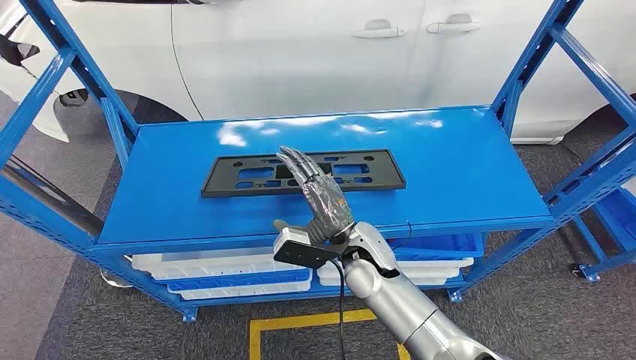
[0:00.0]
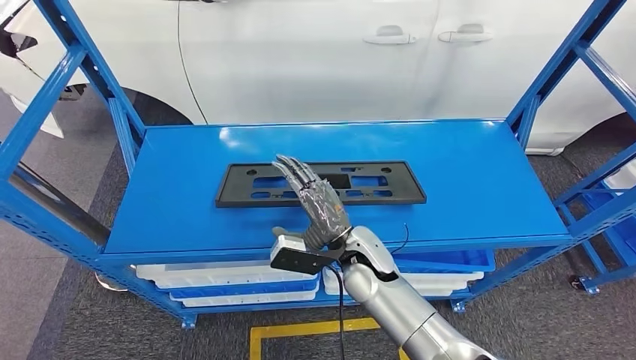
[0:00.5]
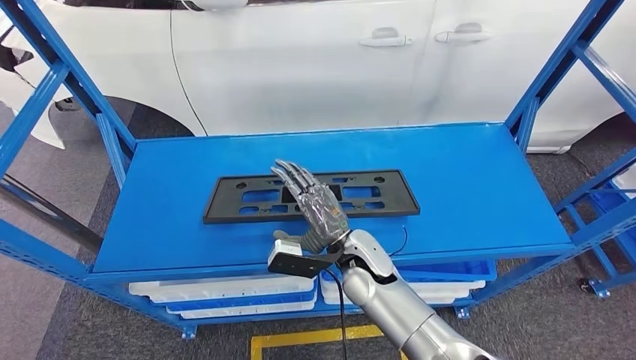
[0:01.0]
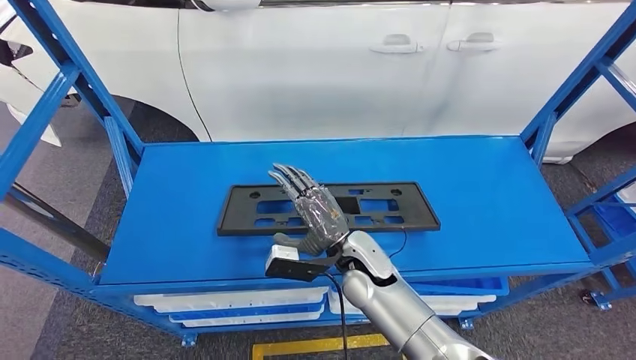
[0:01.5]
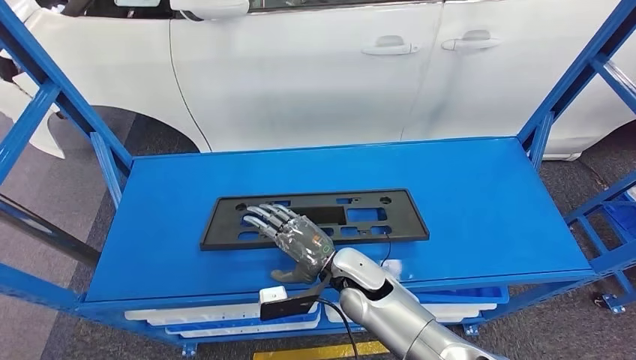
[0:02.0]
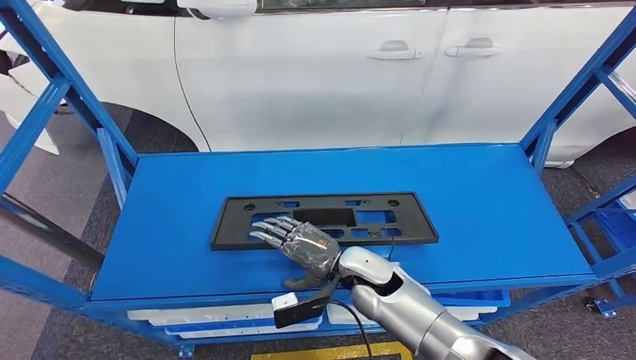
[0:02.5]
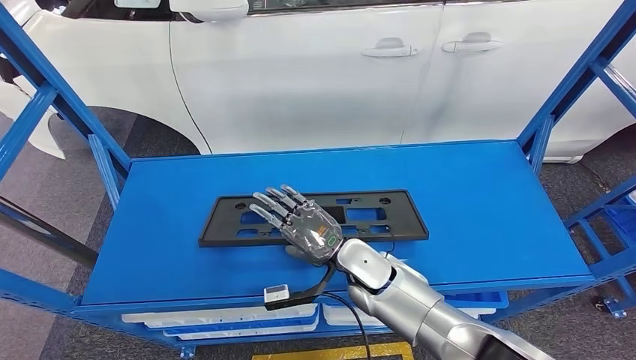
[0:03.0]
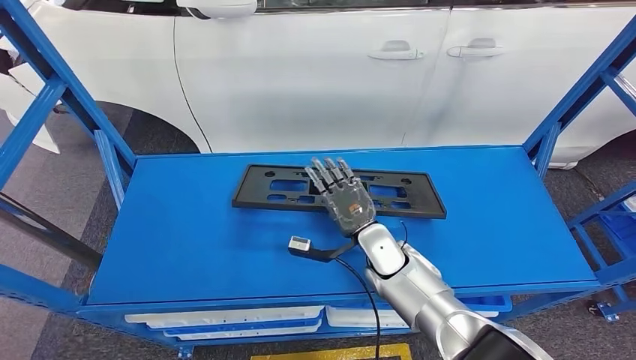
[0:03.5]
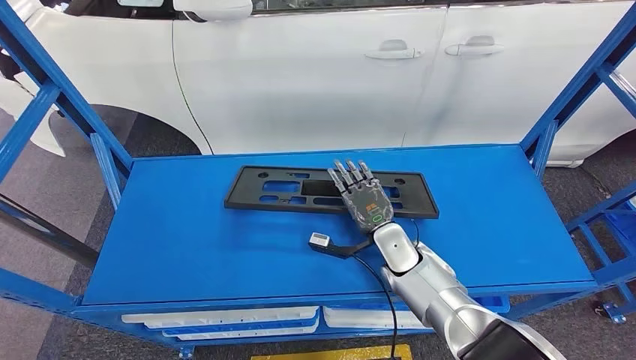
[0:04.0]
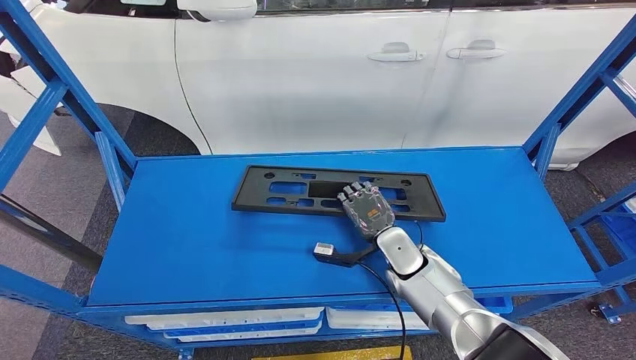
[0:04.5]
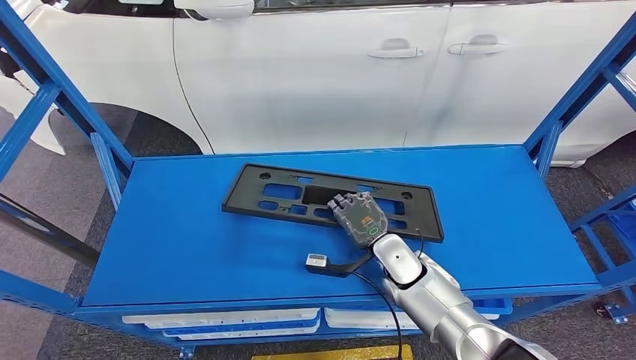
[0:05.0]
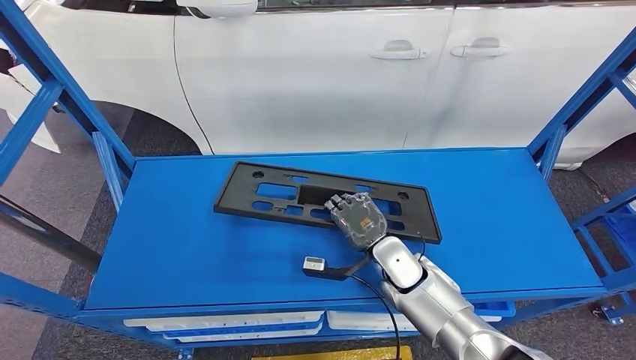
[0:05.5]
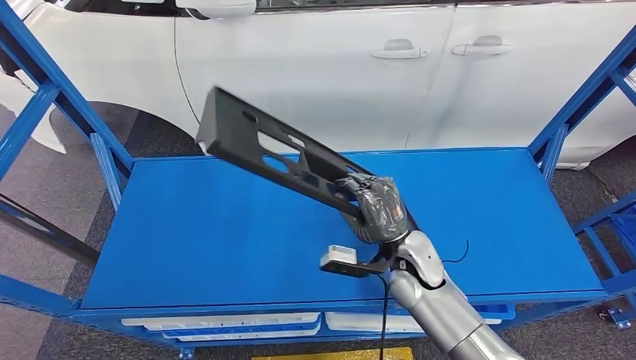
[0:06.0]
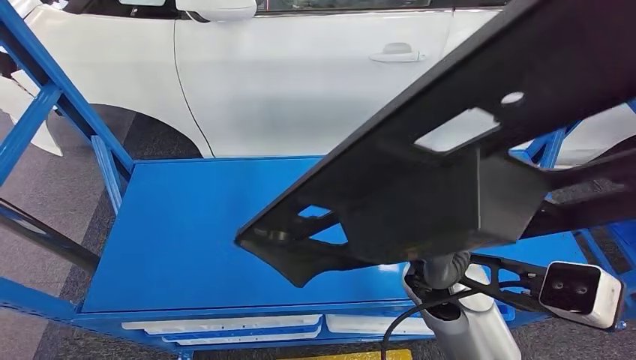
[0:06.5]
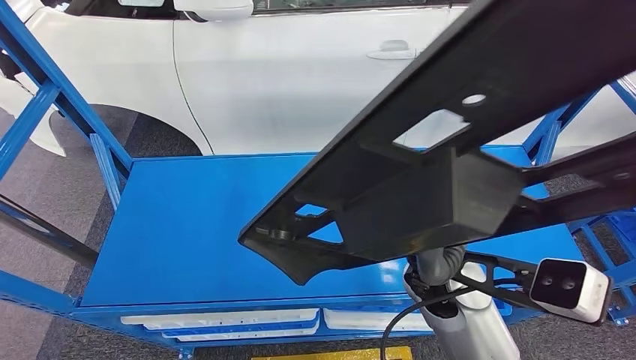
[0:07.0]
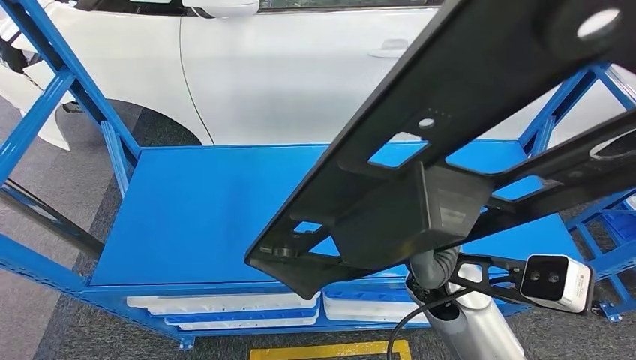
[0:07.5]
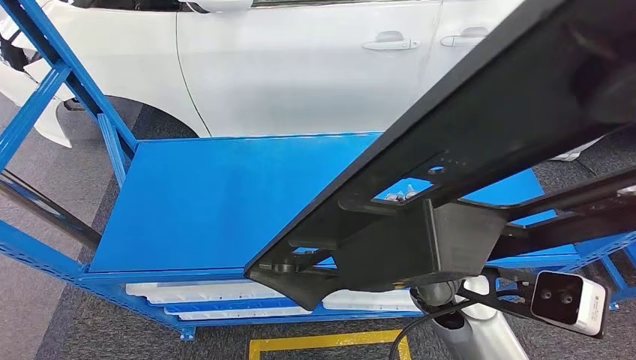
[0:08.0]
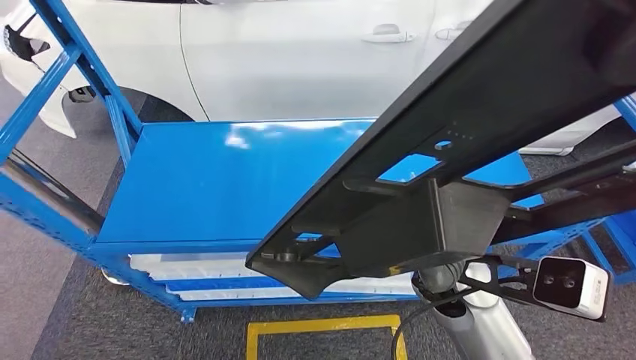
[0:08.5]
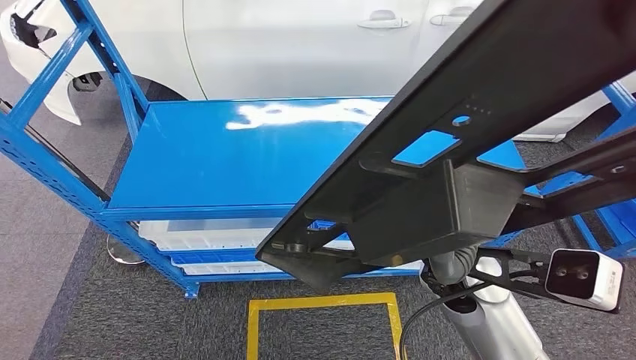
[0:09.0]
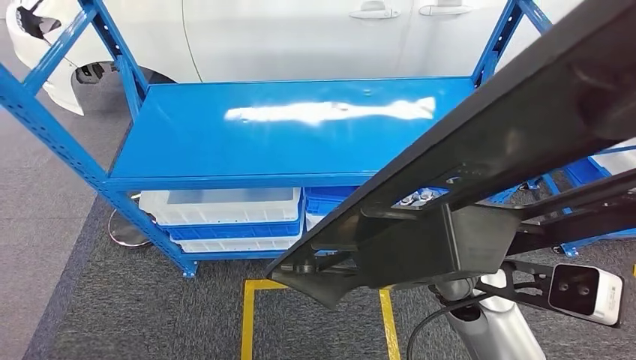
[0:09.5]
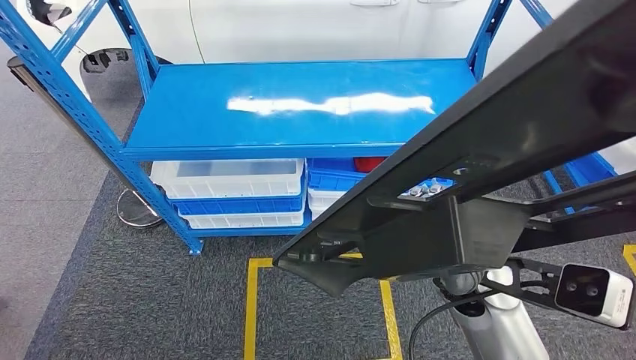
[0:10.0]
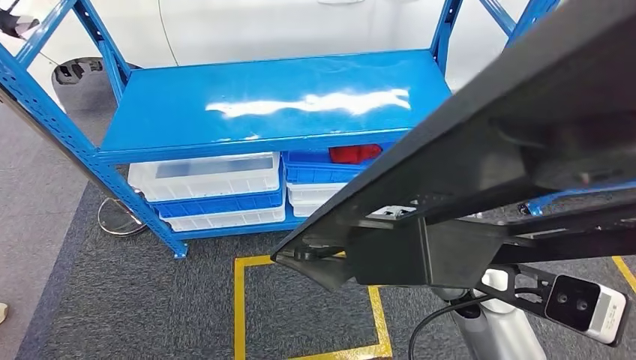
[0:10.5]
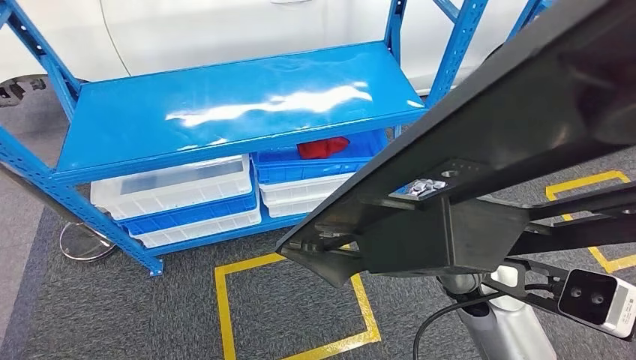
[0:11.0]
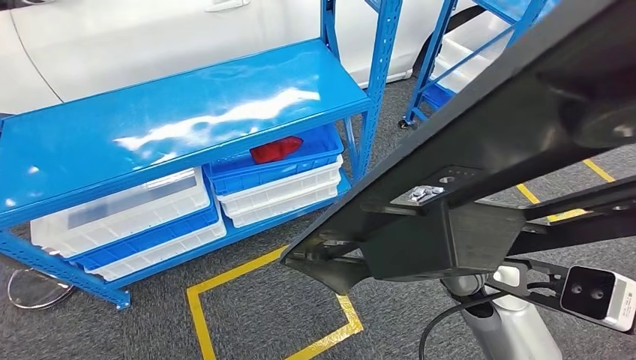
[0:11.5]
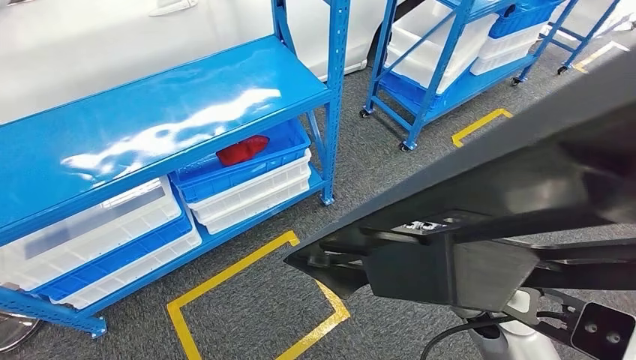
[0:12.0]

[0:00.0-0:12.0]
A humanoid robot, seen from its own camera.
Step, 0:00.0 to 0:07.5: Pick up the small component from the shelf.

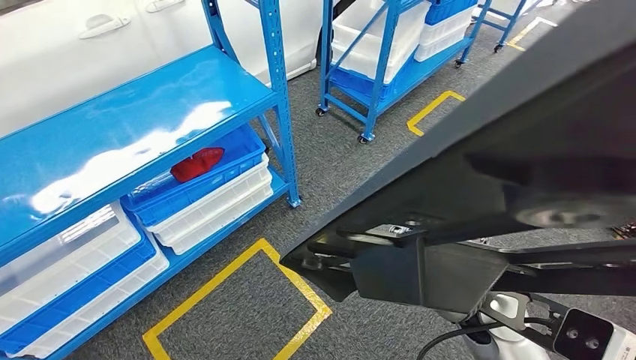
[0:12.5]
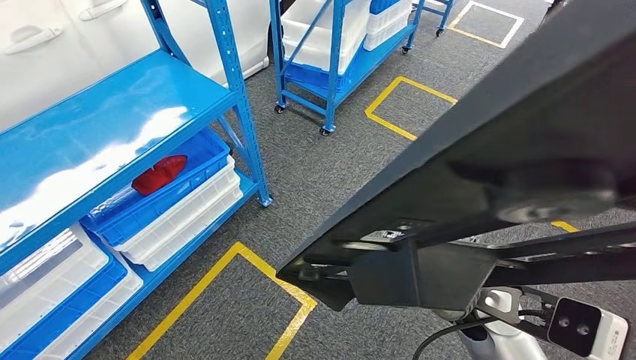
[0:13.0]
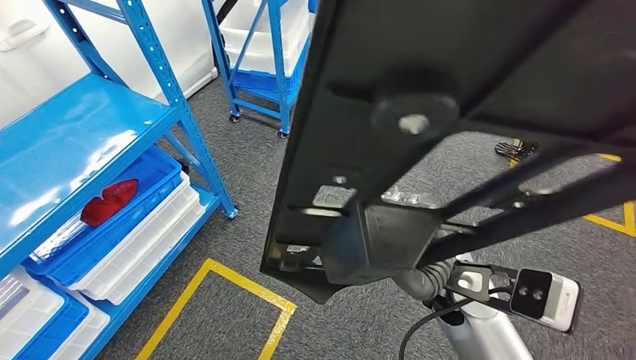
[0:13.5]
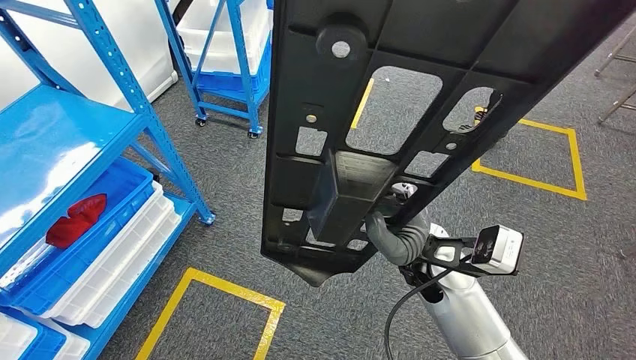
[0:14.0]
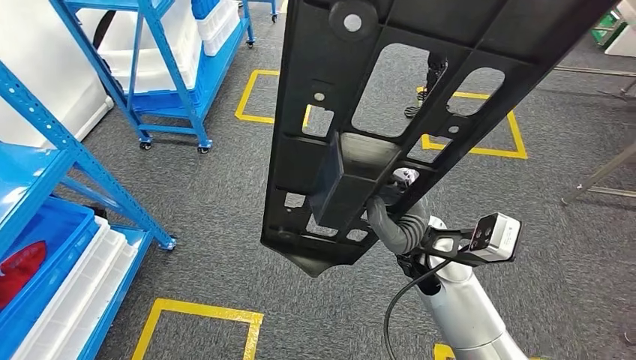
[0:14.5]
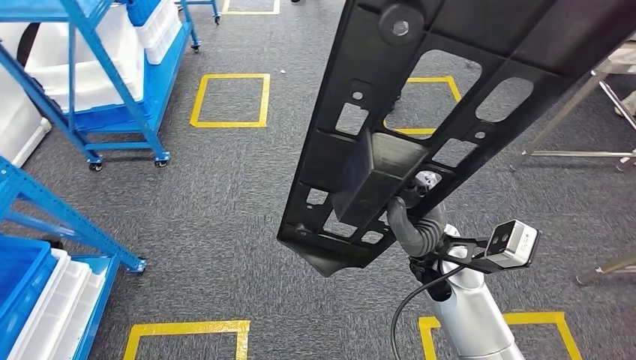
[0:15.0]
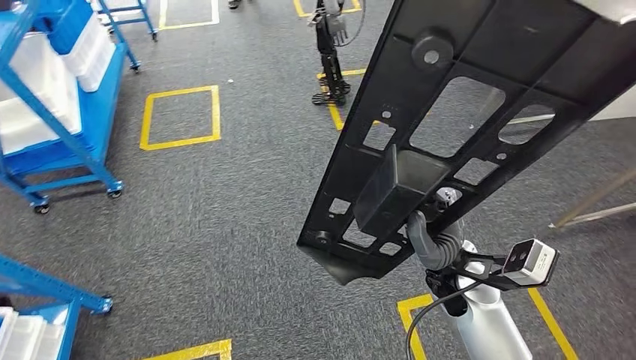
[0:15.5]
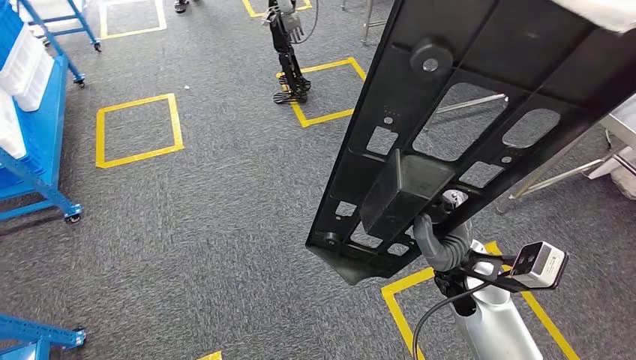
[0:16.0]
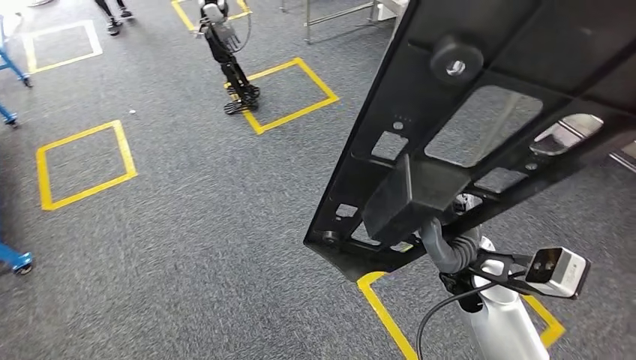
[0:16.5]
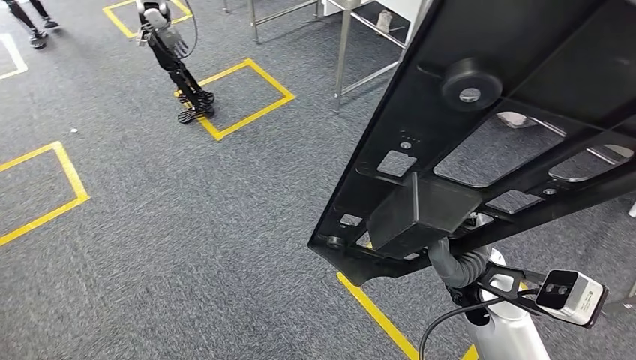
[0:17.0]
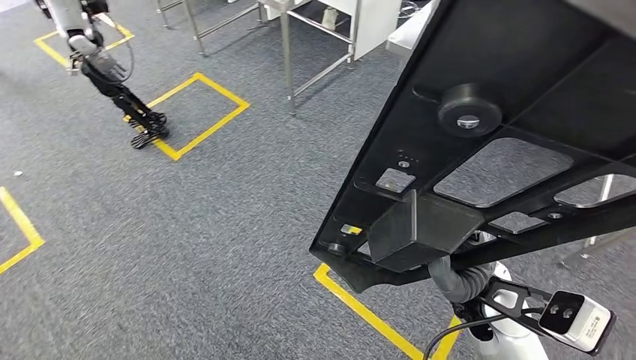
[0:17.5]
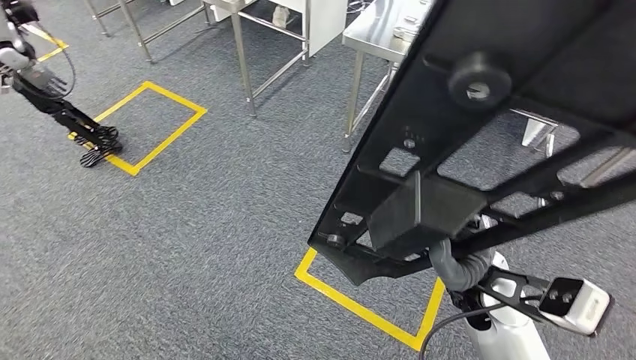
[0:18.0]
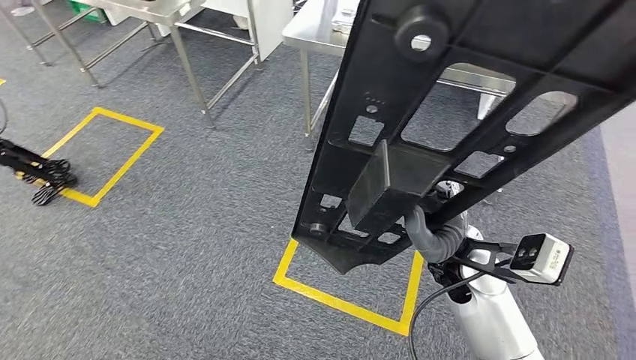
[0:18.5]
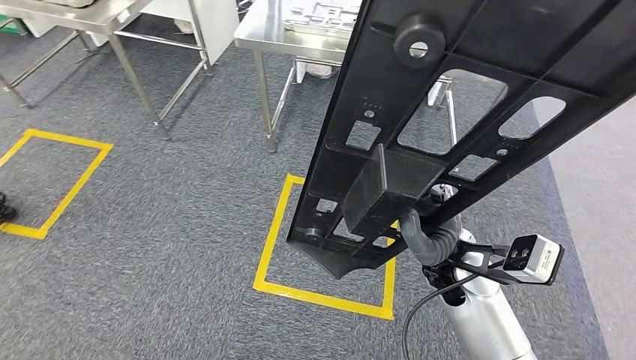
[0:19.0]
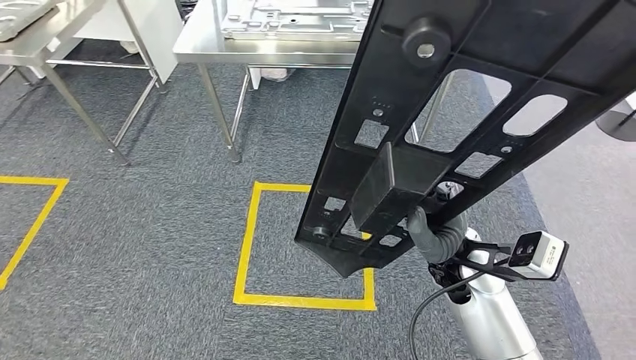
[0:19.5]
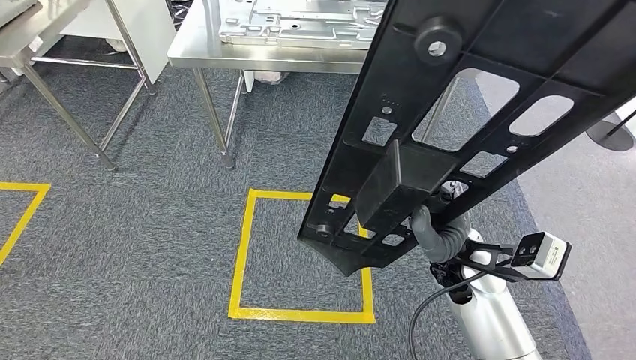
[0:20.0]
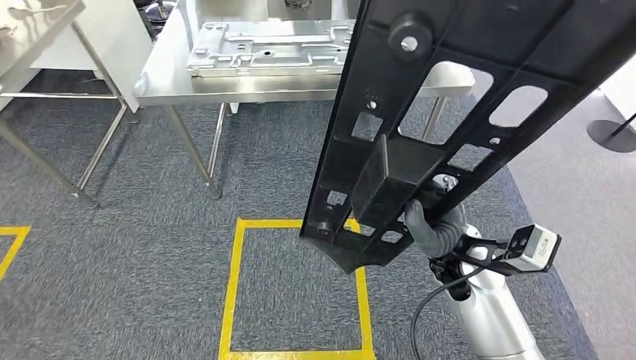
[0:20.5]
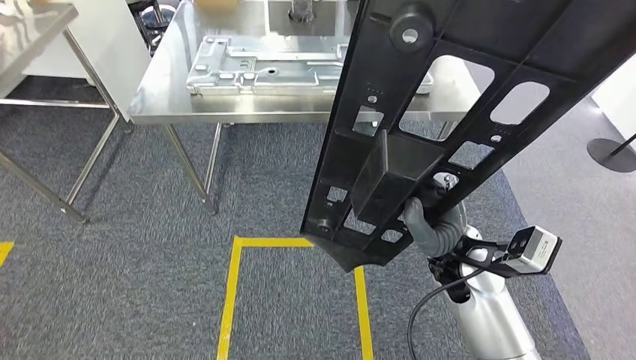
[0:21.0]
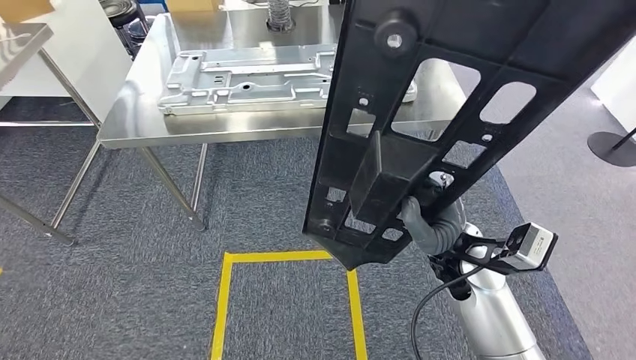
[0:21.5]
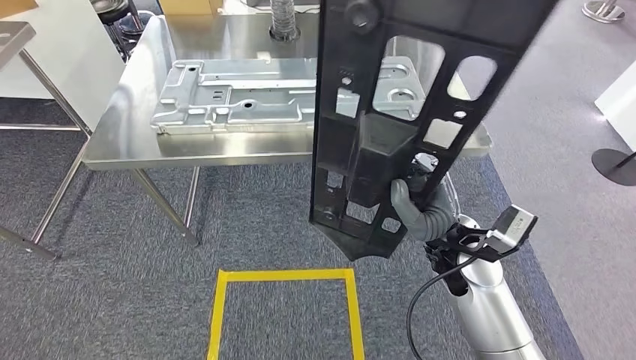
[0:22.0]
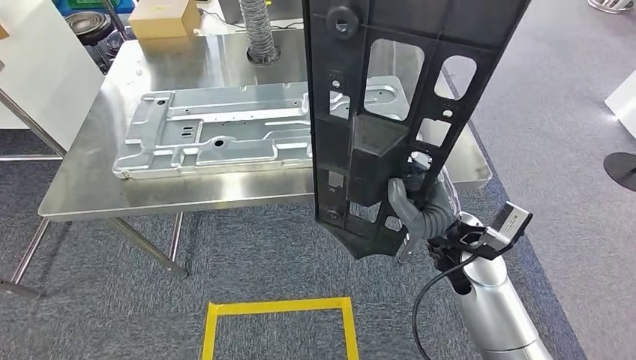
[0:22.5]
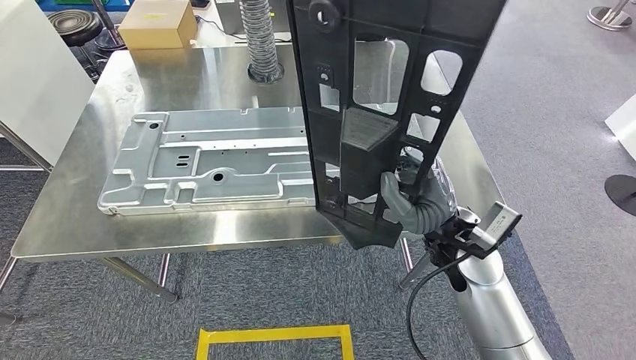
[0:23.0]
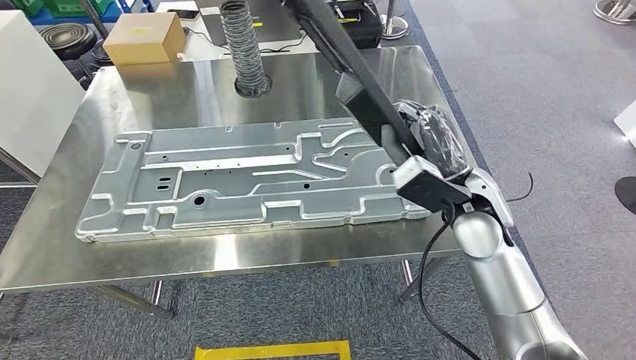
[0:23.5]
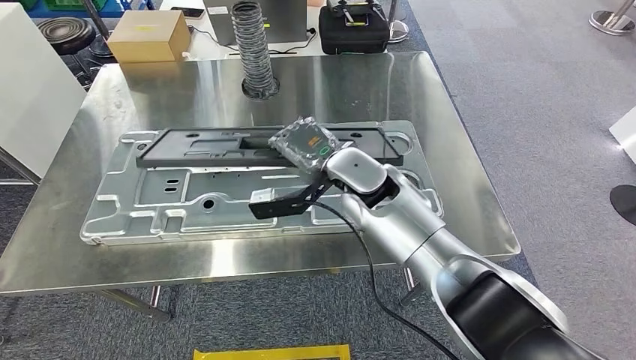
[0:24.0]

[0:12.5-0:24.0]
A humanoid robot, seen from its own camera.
Step, 0:12.5 to 0:22.5: Move the small component to the workbench.
